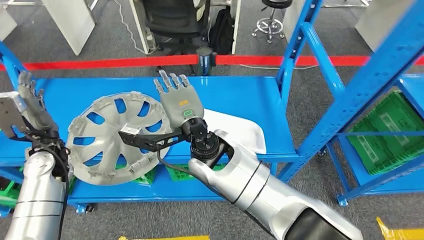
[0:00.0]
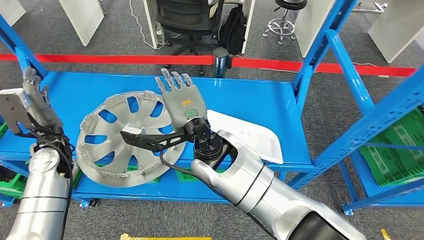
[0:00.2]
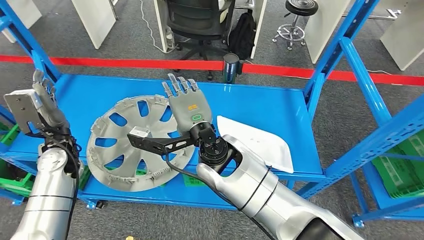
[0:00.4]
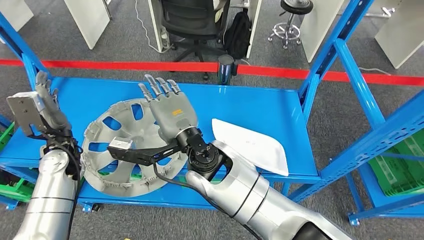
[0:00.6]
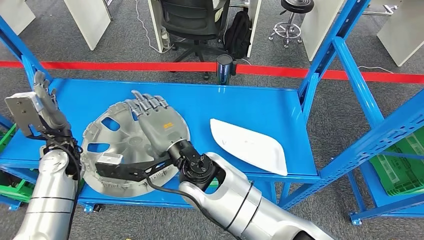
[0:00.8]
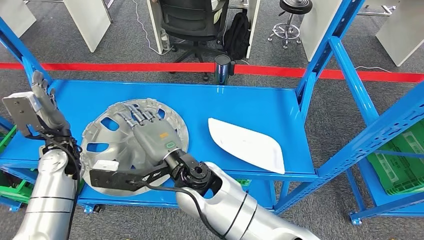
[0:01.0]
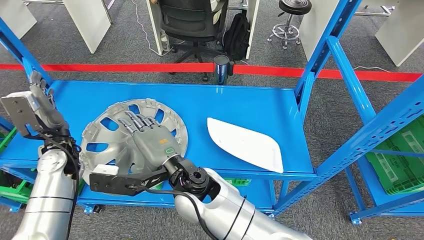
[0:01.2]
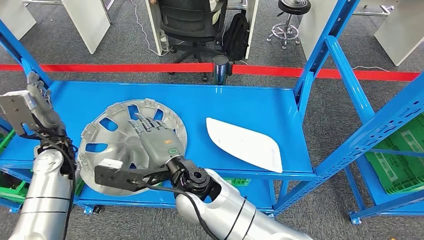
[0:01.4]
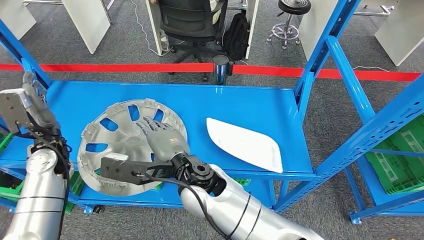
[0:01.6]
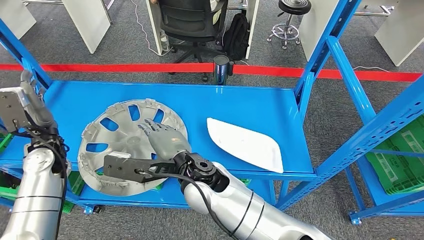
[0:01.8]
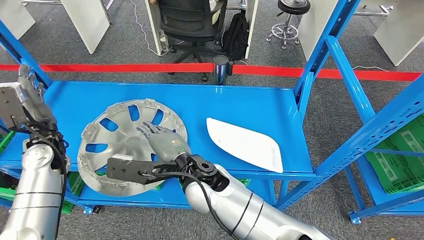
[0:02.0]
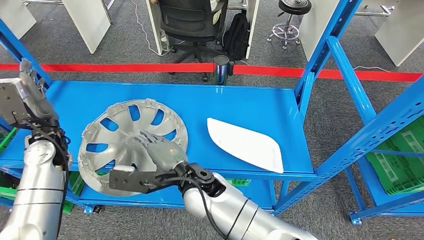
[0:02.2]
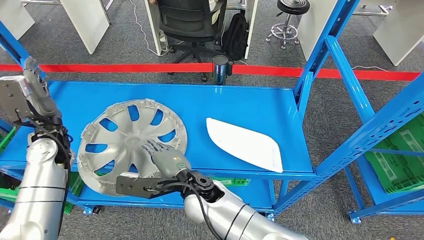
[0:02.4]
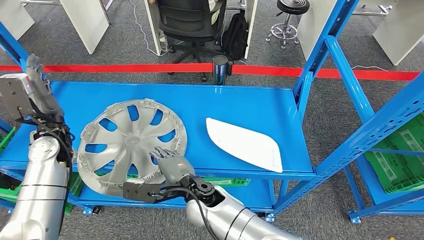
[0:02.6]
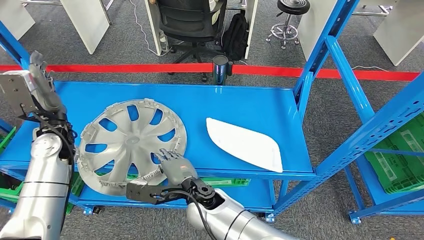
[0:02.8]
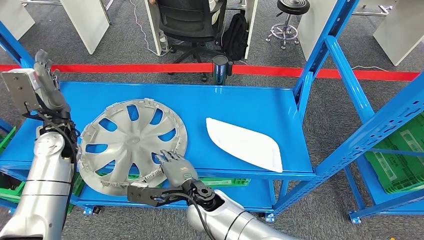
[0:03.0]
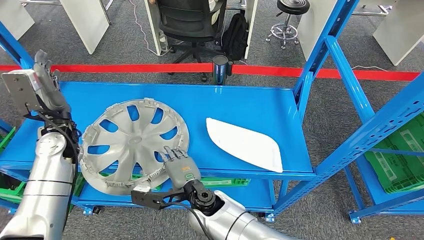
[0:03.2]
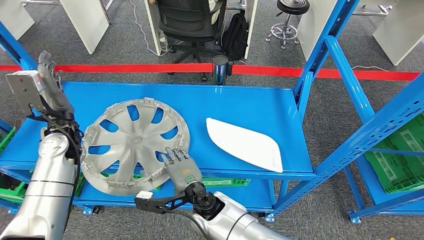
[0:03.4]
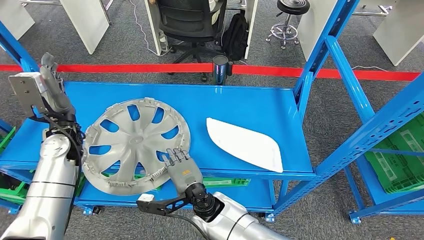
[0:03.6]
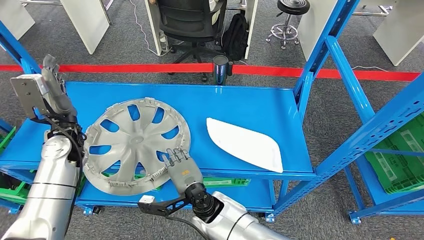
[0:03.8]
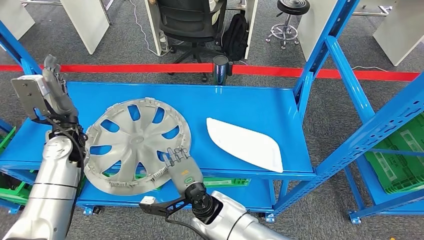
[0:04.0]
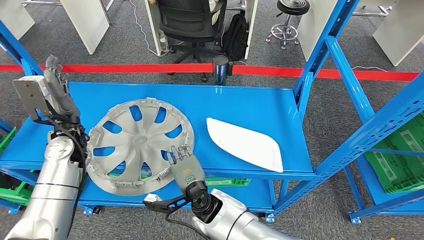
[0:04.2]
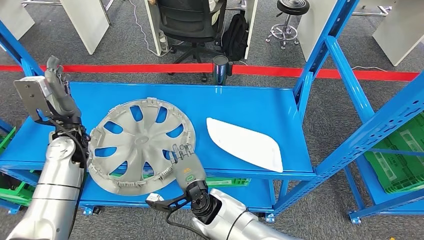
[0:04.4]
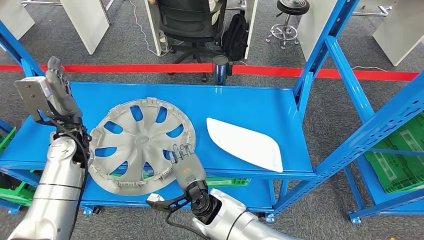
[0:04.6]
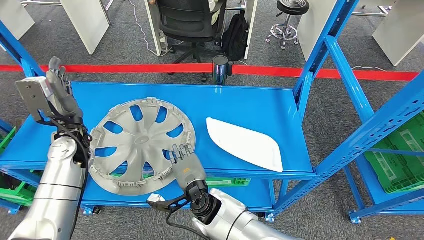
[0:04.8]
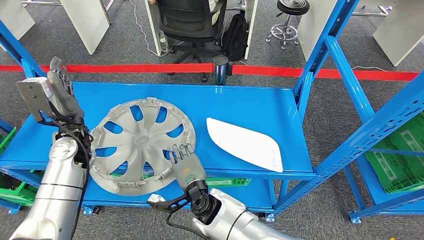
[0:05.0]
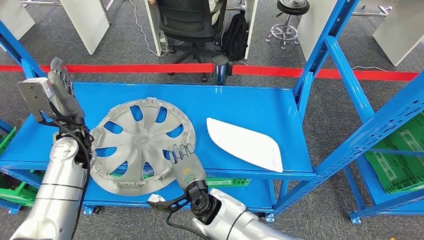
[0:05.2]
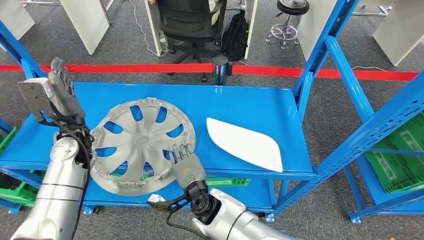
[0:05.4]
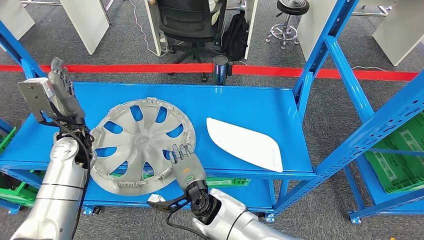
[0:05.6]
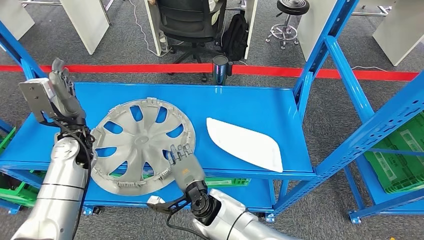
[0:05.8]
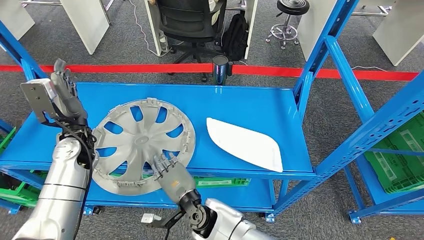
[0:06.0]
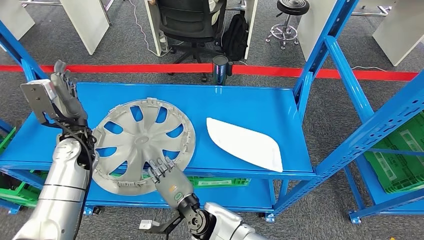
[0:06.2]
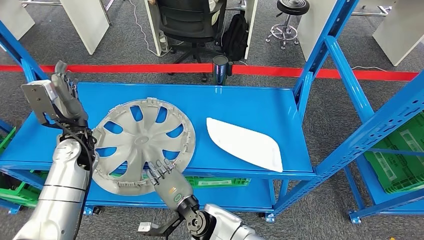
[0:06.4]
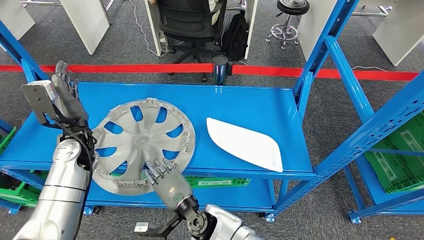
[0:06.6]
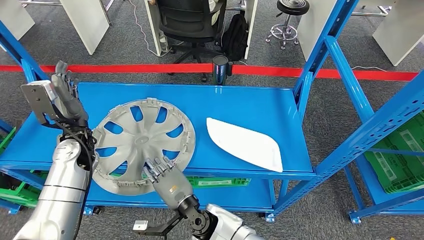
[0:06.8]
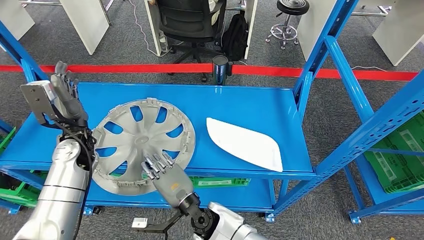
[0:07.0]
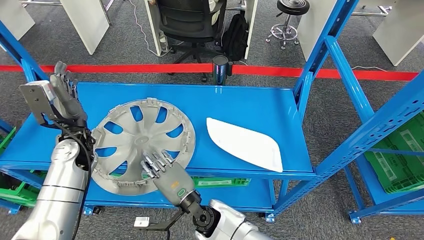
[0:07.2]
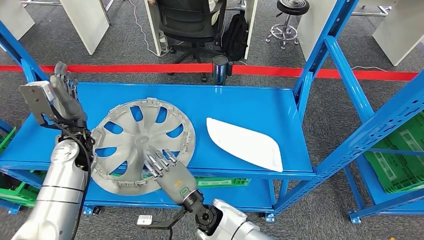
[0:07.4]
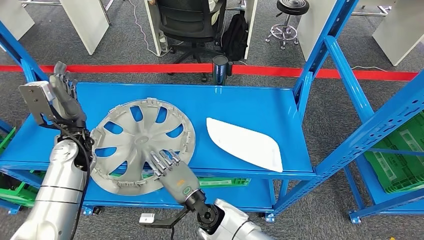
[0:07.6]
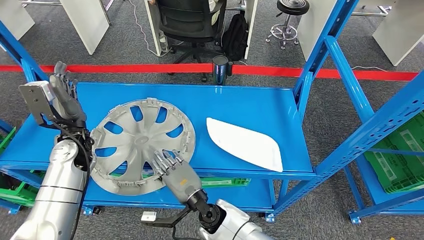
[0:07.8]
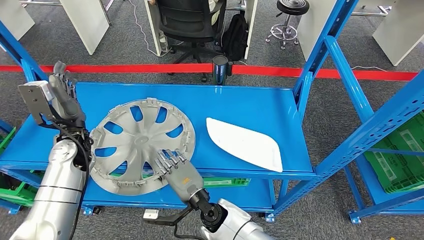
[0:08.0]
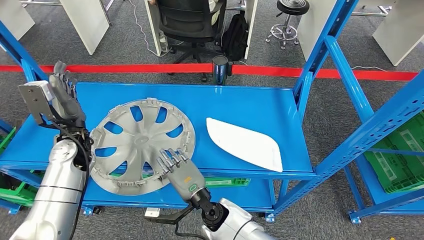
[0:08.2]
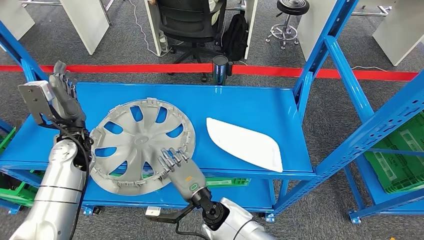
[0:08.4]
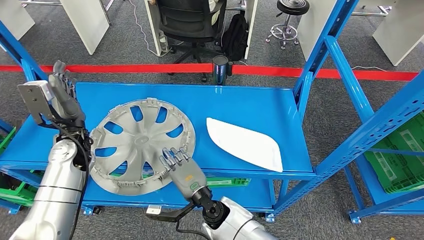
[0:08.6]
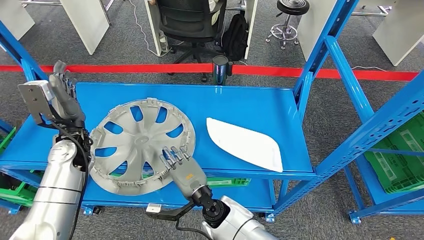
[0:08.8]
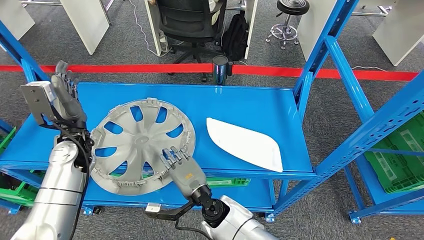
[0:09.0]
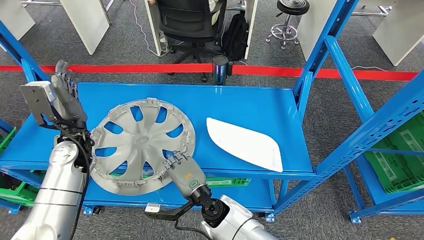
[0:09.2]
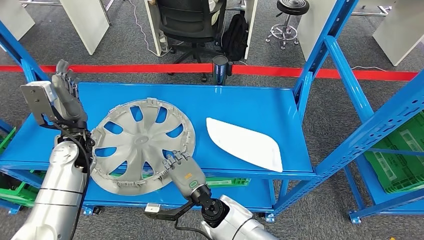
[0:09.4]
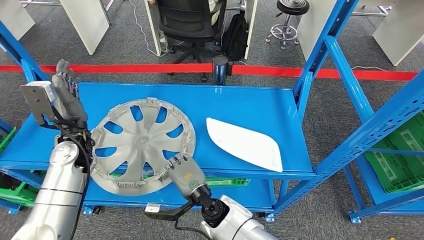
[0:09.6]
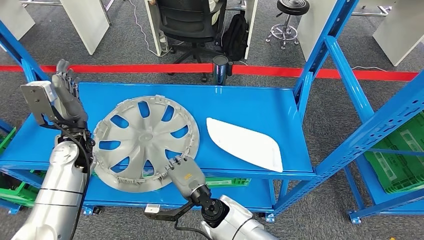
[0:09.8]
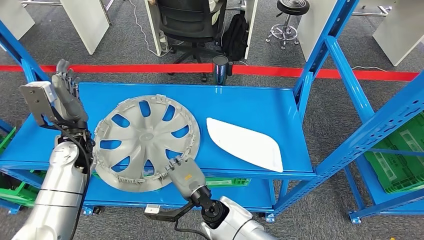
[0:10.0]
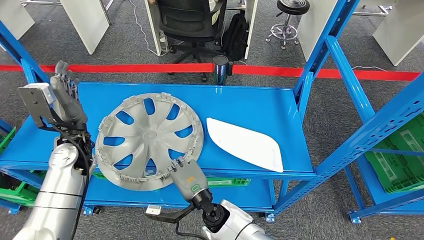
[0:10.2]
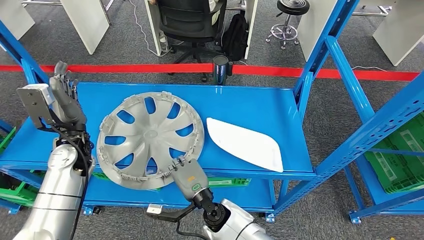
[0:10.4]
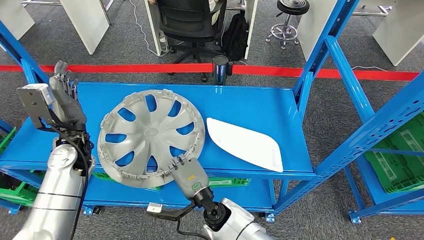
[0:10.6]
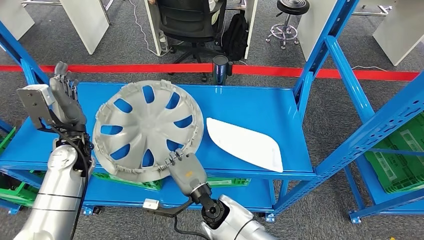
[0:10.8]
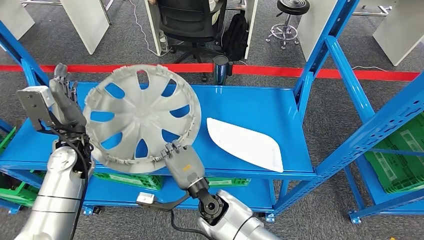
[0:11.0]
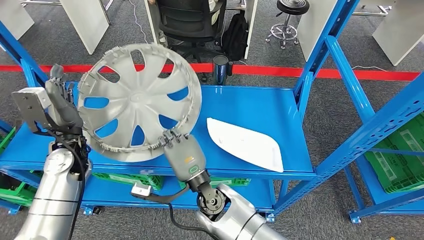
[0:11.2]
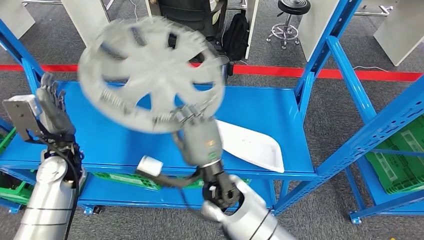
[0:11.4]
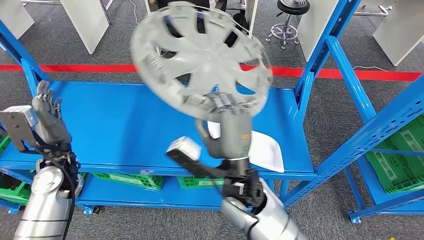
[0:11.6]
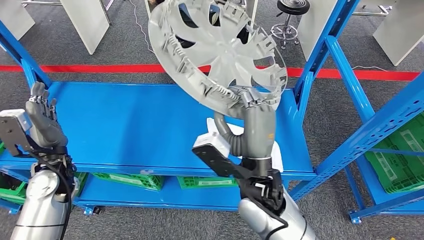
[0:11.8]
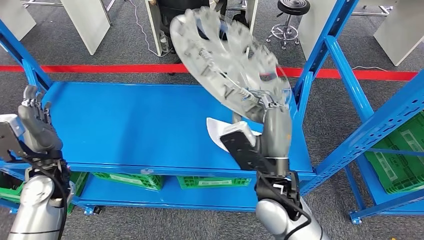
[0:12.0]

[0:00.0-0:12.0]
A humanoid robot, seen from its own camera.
Step, 0:00.0 to 0:11.4: Pick up the small parts from the shelf.
0:01.6 to 0:03.0: The right hand is displaced downward by approximately 10 cm.
0:04.4 to 0:06.0: The hands make only small movements.
0:07.6 to 0:09.0: The hands make only small movements.
0:09.0 to 0:10.4: The two hands keep their place.

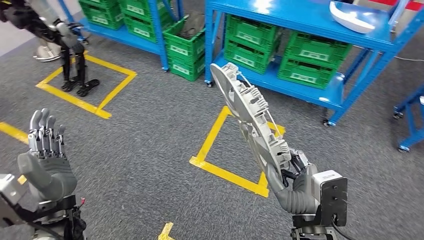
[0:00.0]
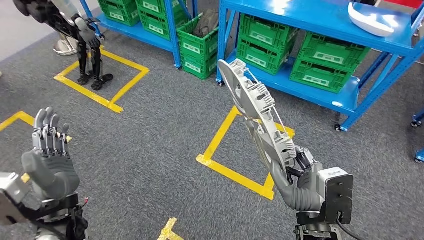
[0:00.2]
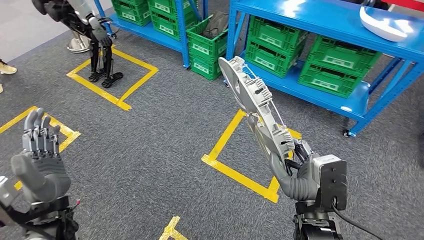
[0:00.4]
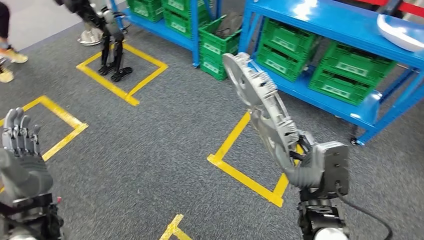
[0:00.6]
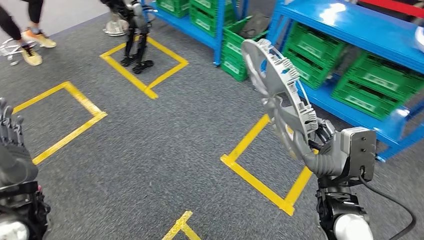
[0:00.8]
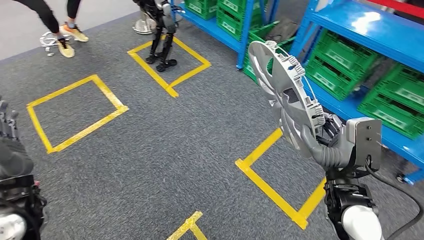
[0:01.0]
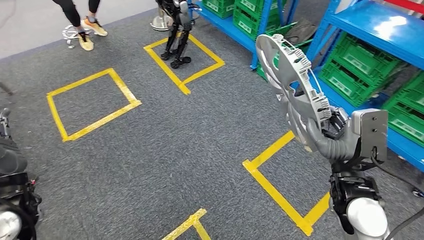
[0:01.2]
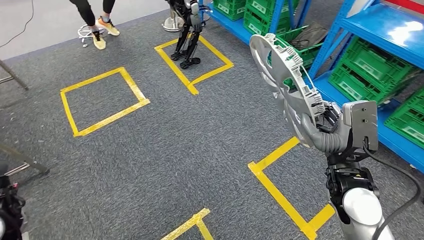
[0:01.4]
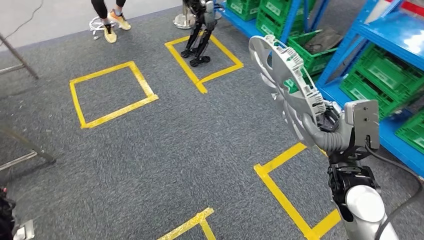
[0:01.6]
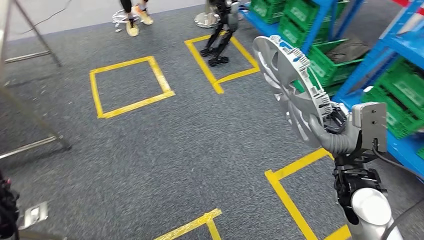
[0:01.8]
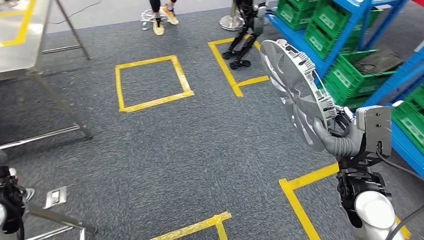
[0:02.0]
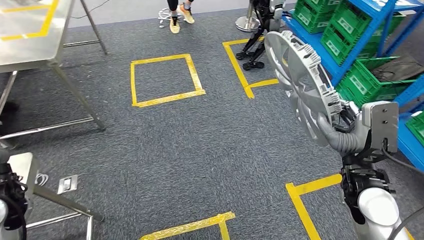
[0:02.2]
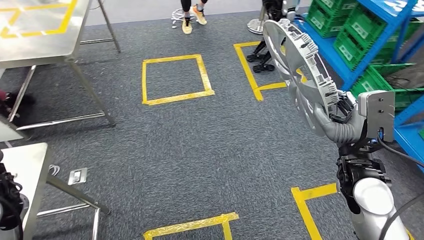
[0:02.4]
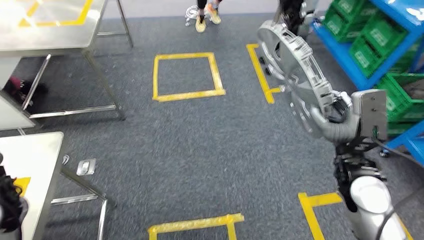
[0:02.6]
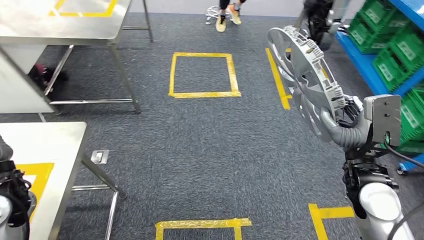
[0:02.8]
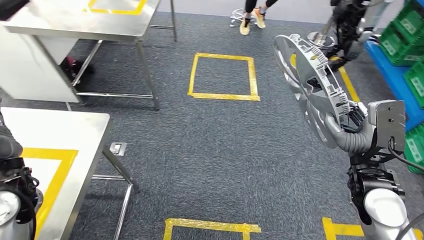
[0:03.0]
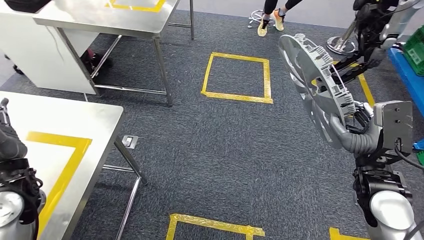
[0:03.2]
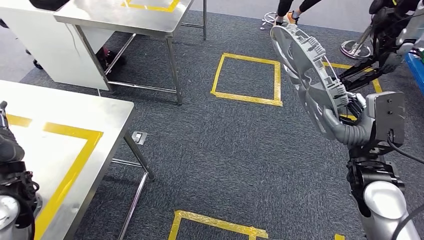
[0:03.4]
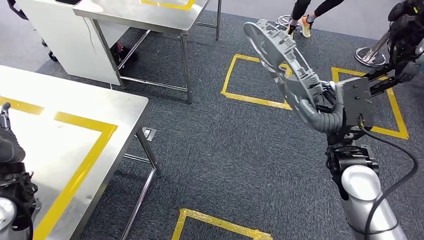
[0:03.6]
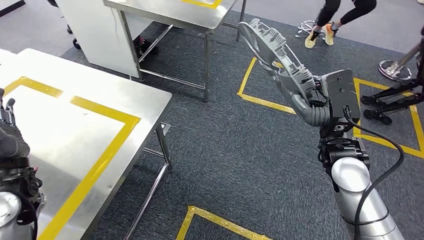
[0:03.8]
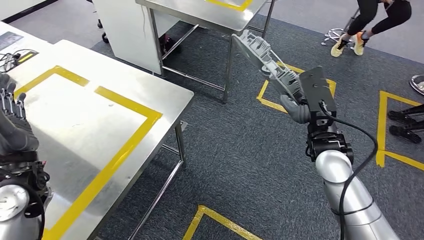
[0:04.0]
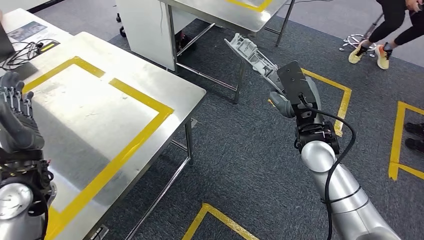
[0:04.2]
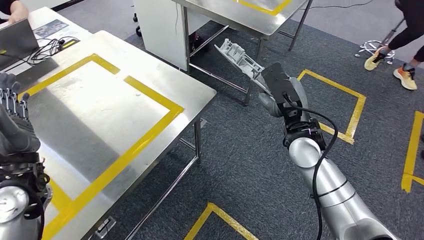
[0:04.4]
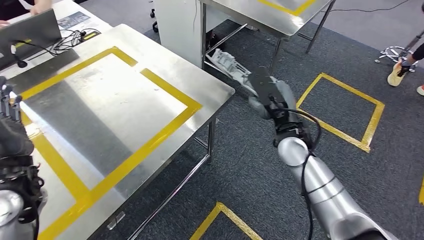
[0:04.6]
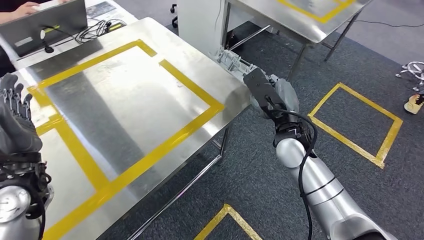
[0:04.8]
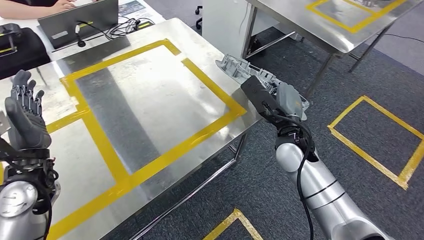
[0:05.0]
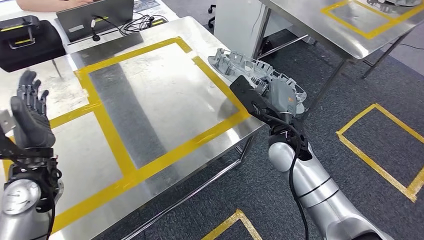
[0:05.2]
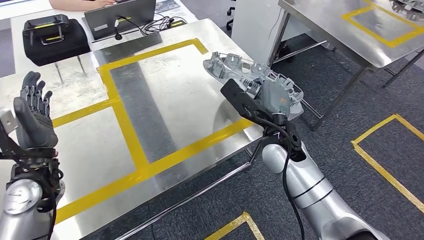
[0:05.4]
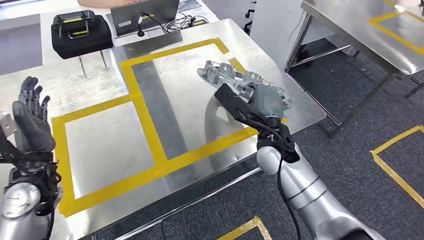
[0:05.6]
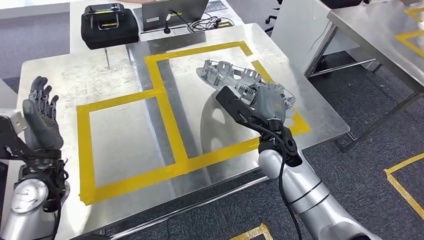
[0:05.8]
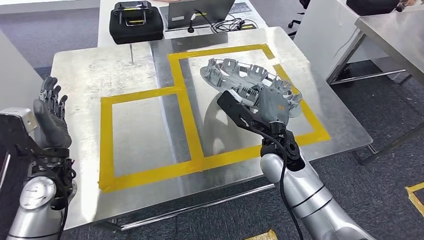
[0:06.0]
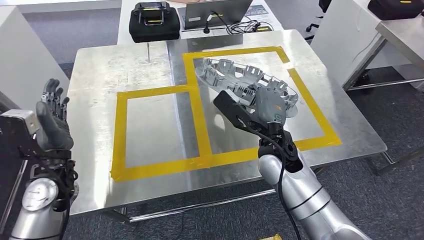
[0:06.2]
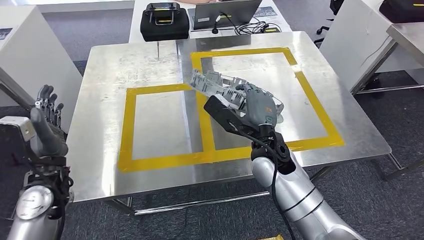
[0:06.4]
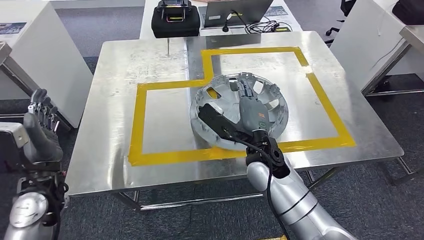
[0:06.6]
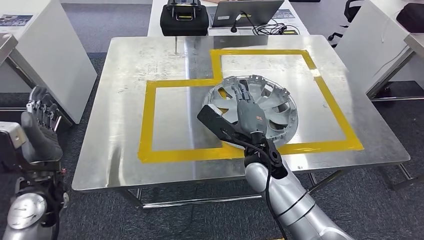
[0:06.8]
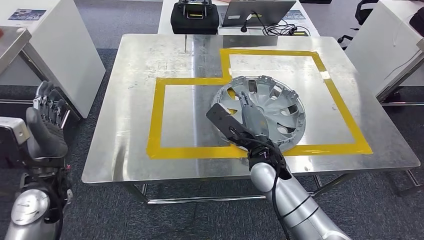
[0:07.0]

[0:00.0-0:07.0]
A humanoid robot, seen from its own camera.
Step, 0:00.0 to 0:05.2: Move the small parts to the workbench.
